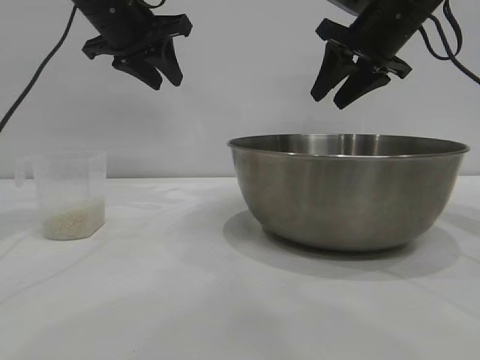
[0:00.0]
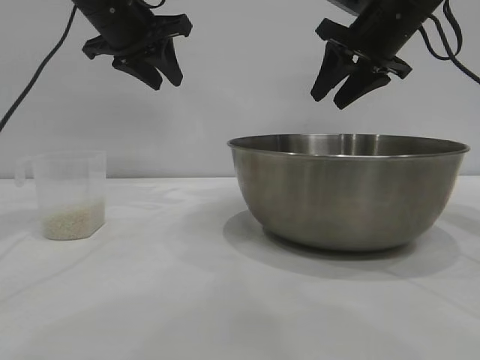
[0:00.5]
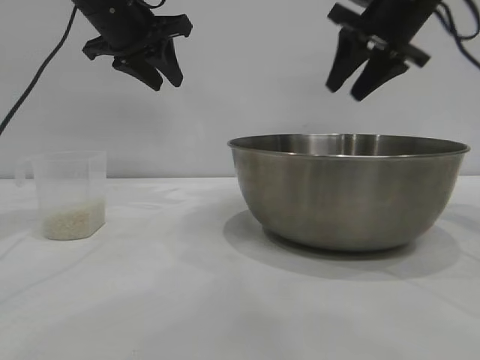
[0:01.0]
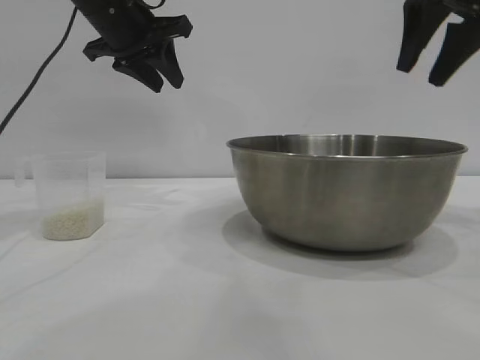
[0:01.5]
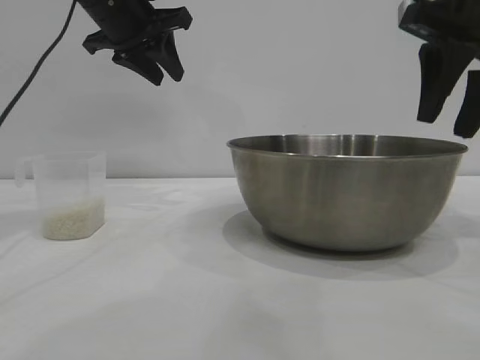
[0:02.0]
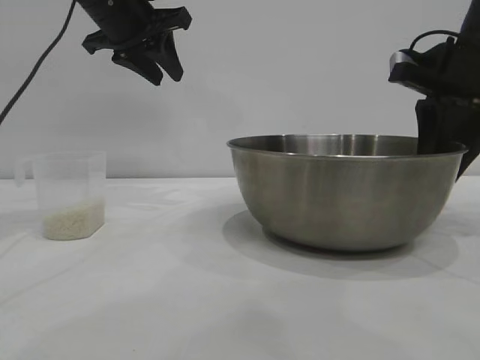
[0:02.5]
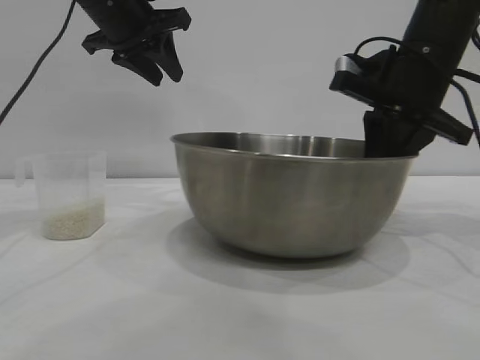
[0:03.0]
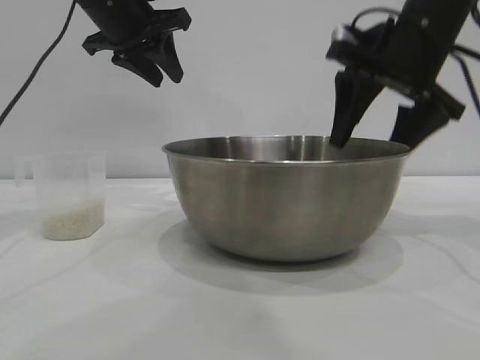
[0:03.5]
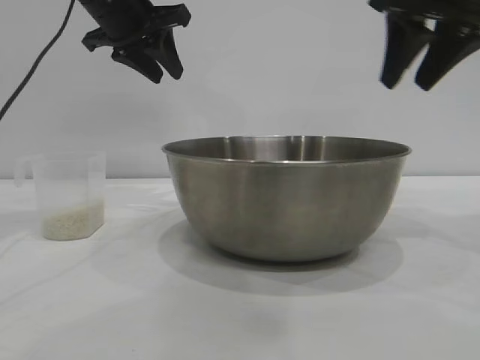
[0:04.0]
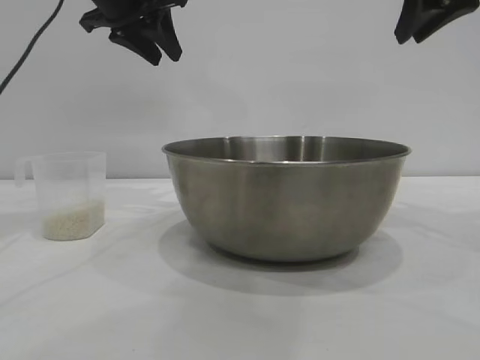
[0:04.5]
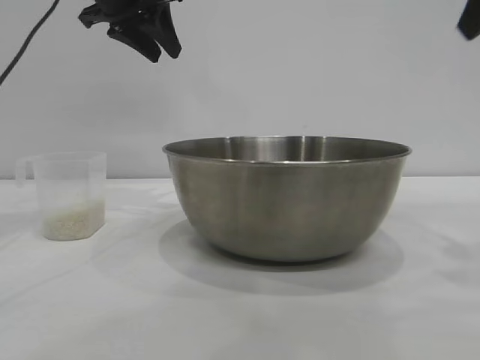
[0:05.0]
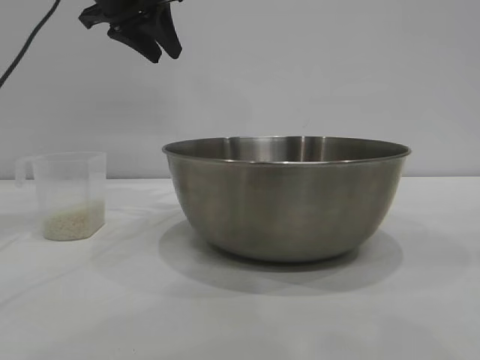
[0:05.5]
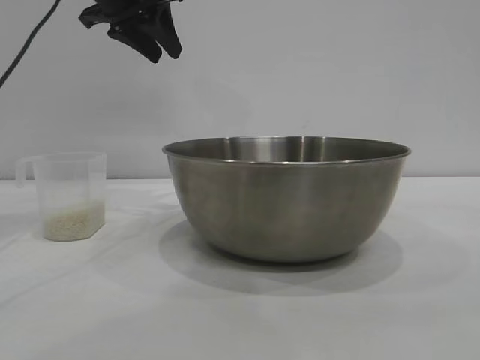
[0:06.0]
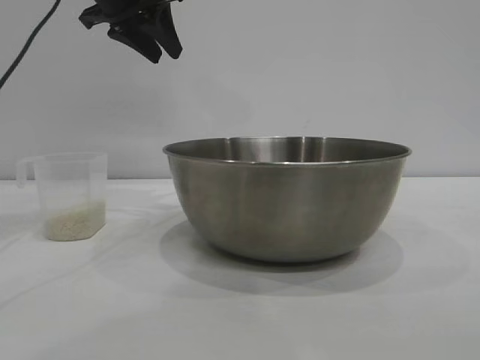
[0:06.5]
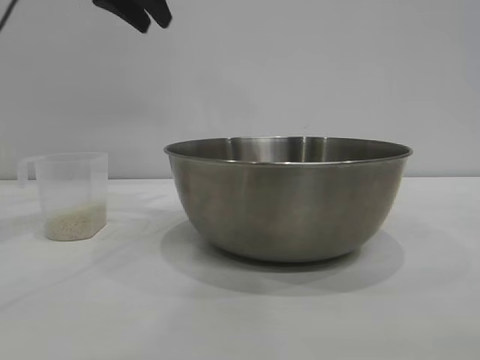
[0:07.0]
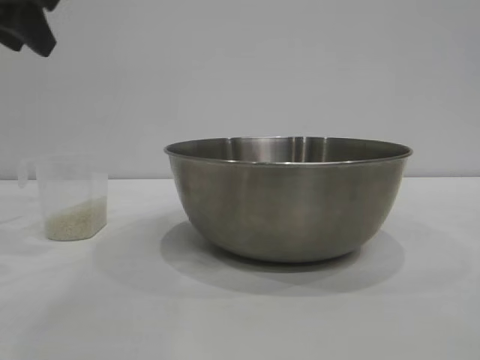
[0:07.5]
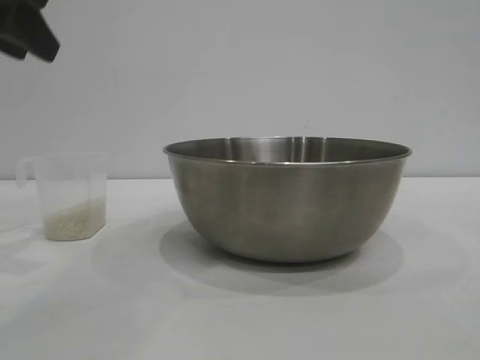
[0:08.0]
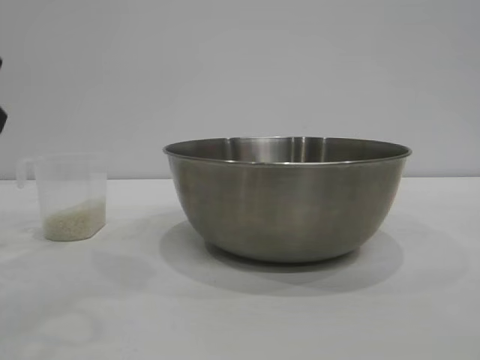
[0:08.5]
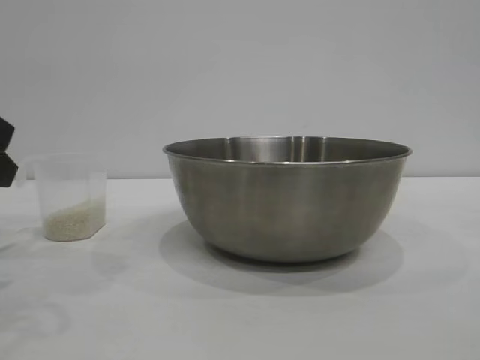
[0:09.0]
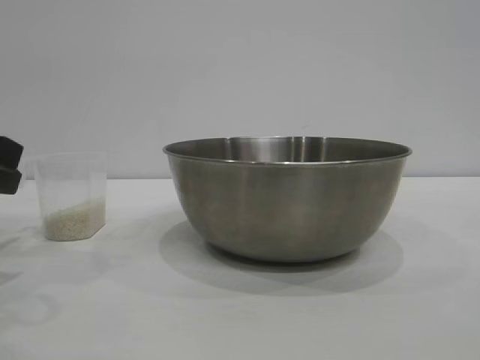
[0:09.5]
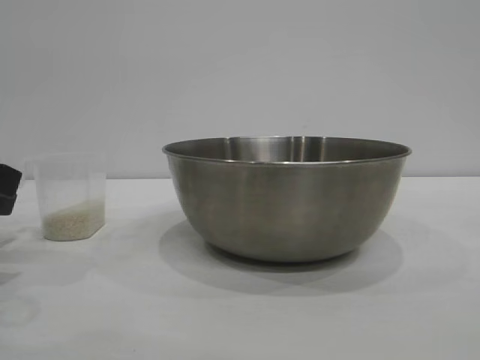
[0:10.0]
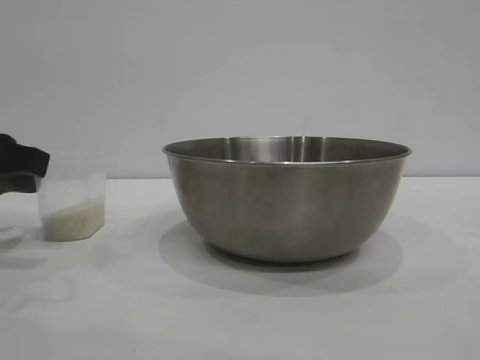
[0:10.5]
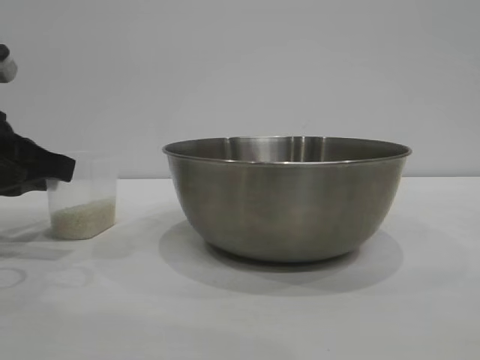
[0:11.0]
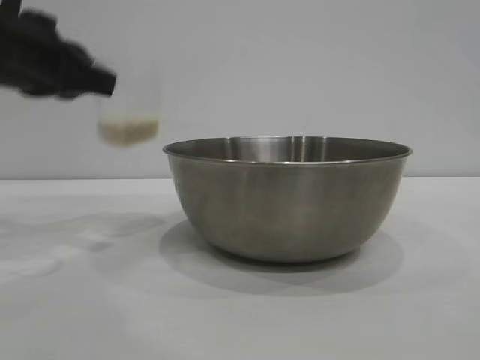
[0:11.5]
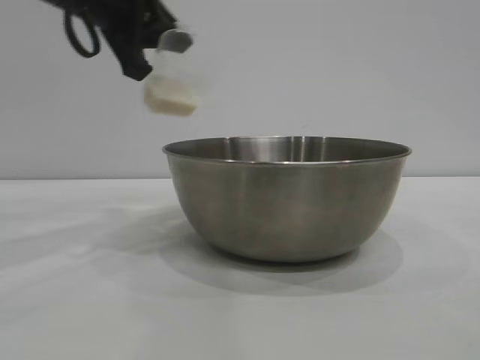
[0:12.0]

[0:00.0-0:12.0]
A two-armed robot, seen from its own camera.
Task of the whole recording: the right gripper grasp the rice container and place it in the center of the table, the left gripper grasp the rice scoop and pour the rice into the rice container.
Step, 0:00.0 to 0:03.5: Move the bowl to the center of view with the right gripper.
Step, 0:04.0 to 0:11.0: Pick up the cup with rice in it with the left gripper.

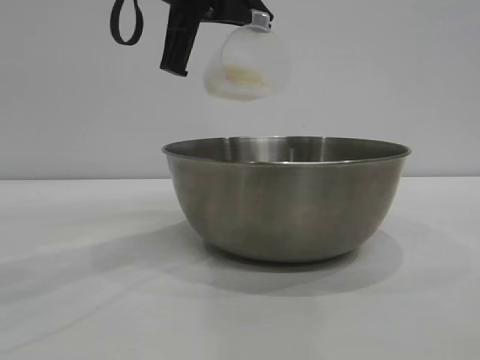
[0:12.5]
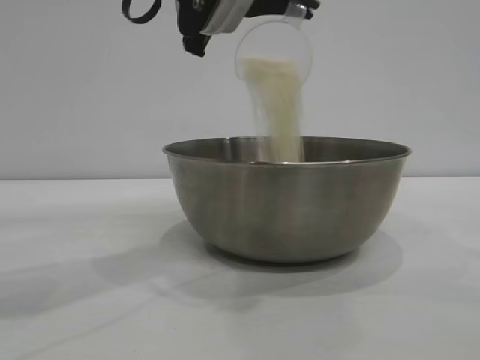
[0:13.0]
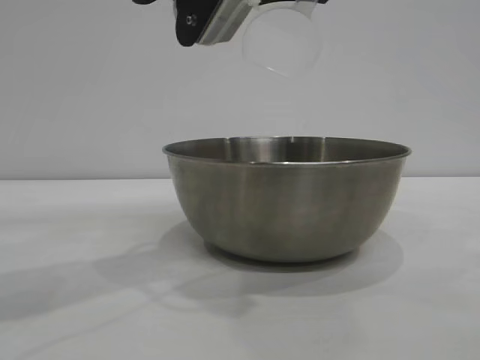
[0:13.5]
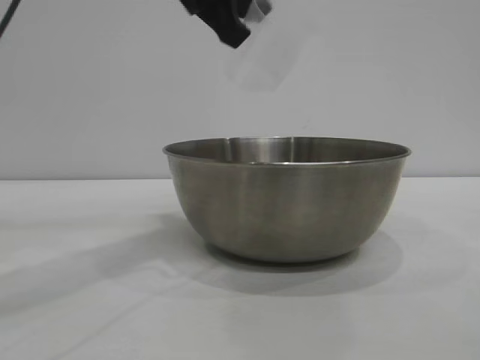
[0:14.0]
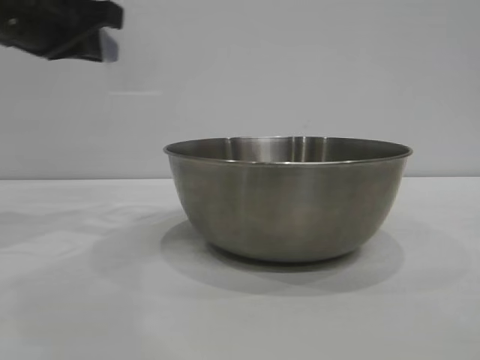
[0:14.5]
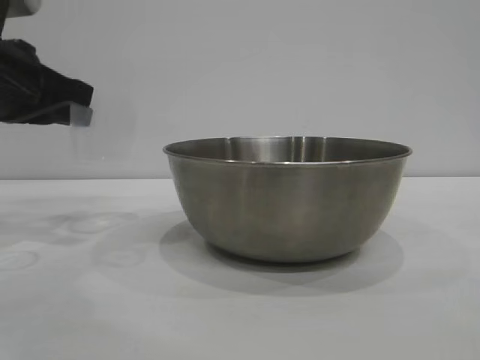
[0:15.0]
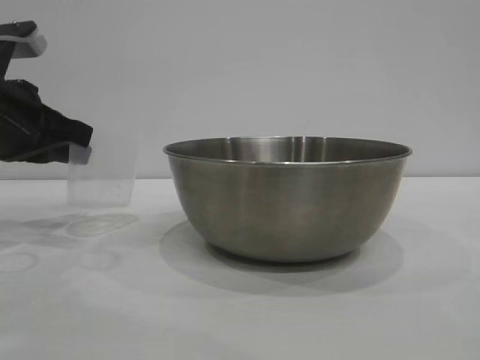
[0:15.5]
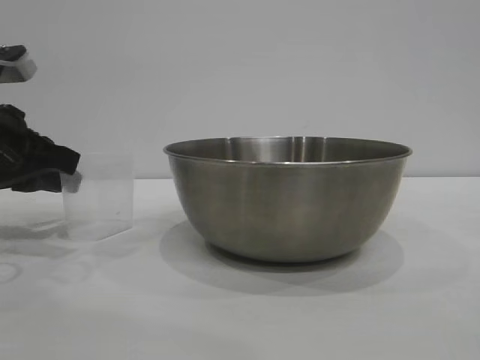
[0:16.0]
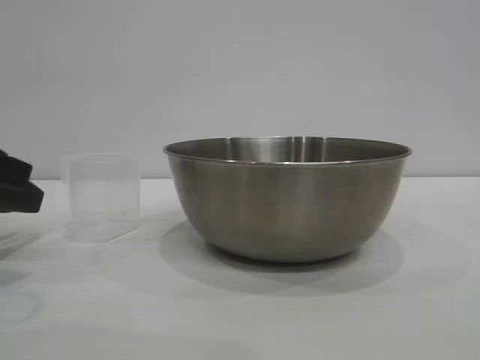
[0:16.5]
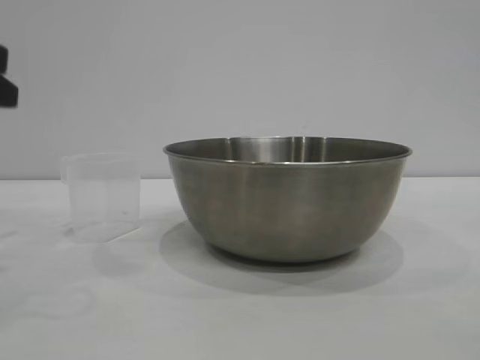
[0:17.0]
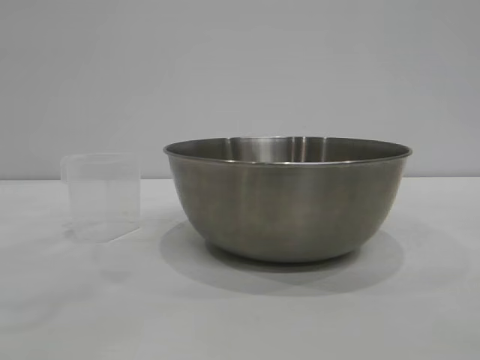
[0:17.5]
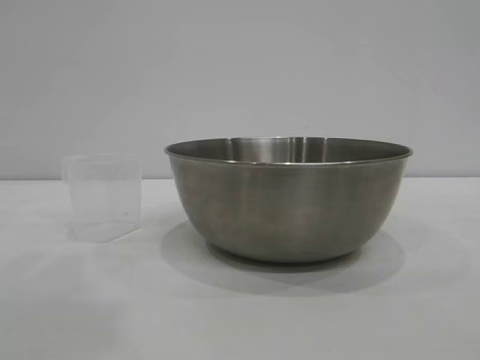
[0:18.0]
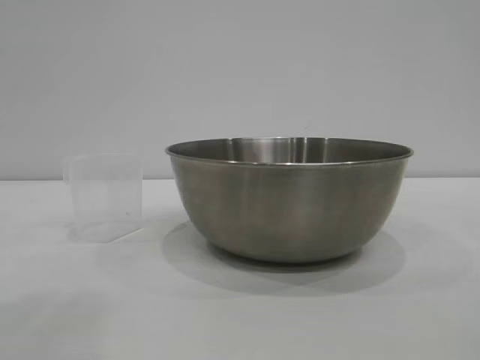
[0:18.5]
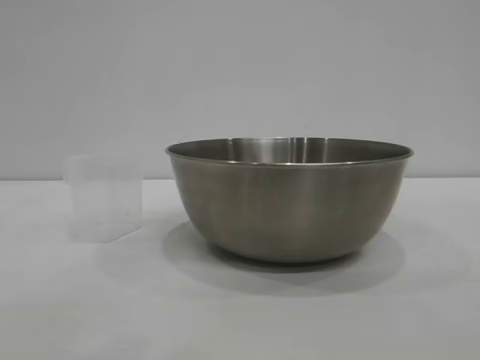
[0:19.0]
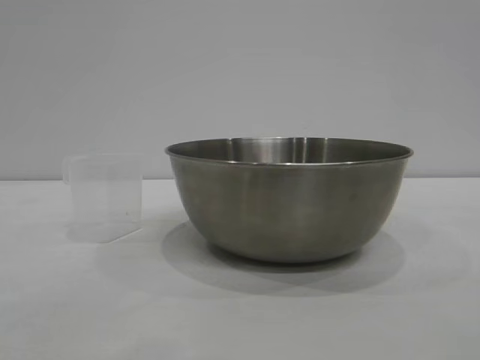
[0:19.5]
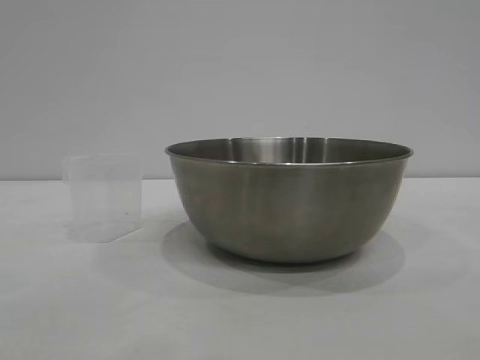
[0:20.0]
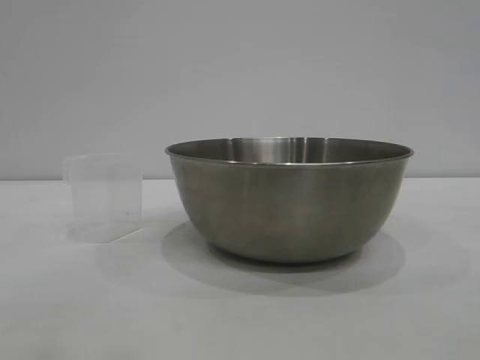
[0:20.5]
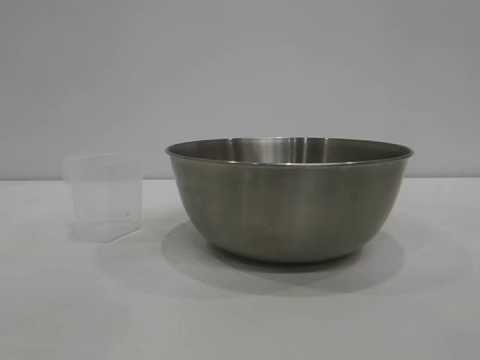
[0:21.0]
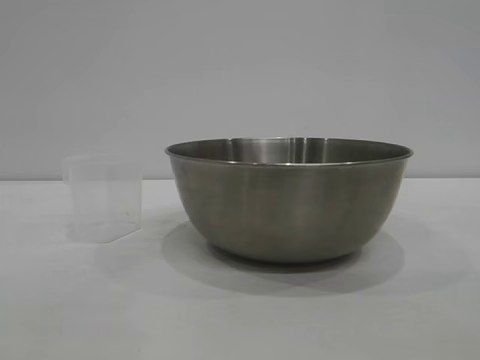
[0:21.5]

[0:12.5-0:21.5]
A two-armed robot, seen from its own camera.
Task of the whole recording: the right gripper grasp the rice container and place it in the center of the table, the left gripper grasp the rice scoop and pour the rice into the rice container.
Step, 0:14.0 to 0:16.0: Place the cup on the table with the left gripper.

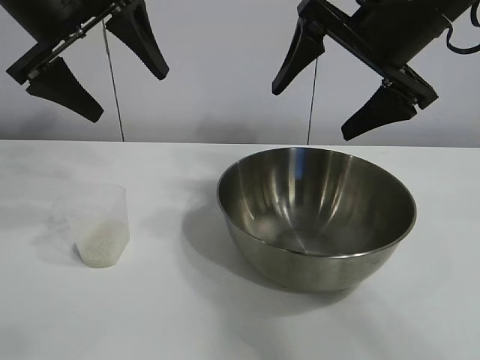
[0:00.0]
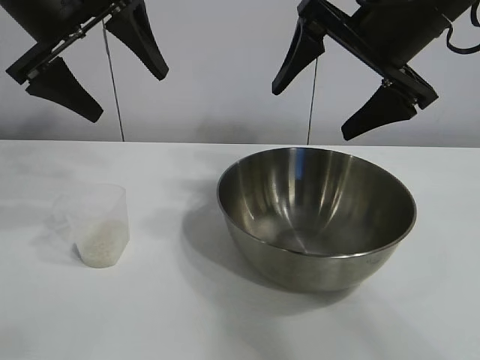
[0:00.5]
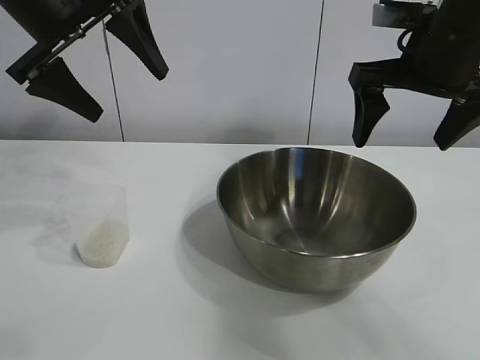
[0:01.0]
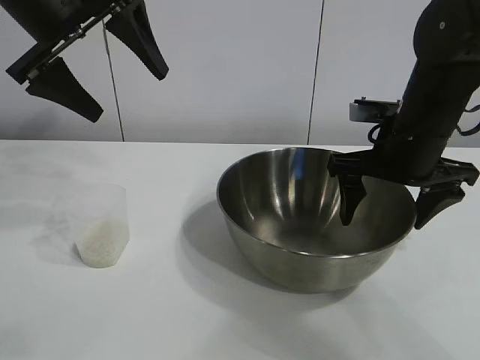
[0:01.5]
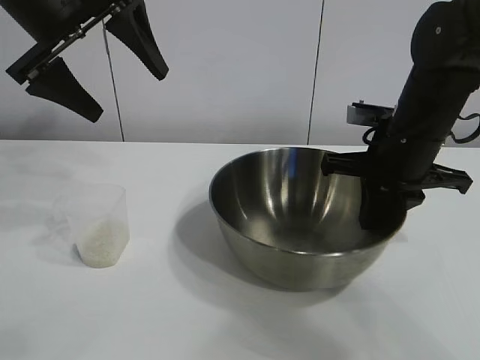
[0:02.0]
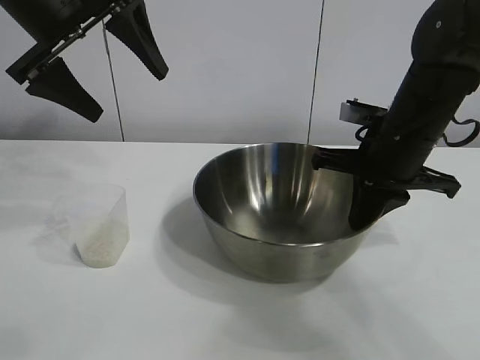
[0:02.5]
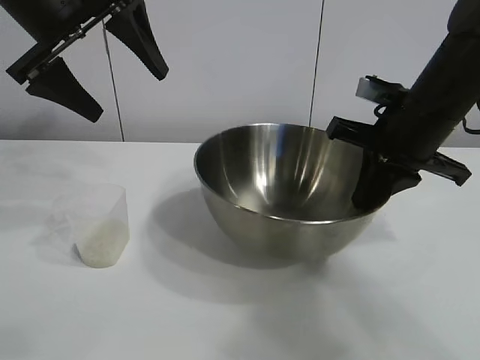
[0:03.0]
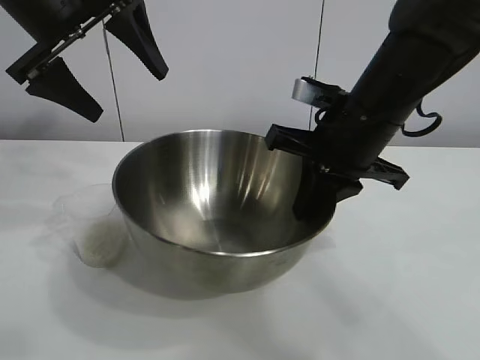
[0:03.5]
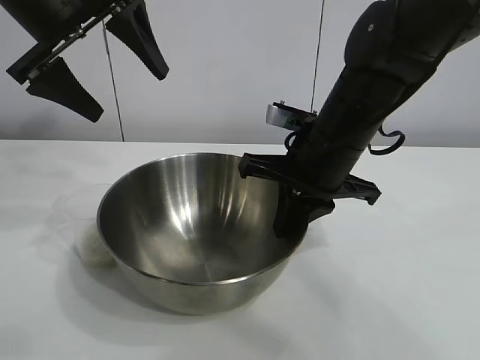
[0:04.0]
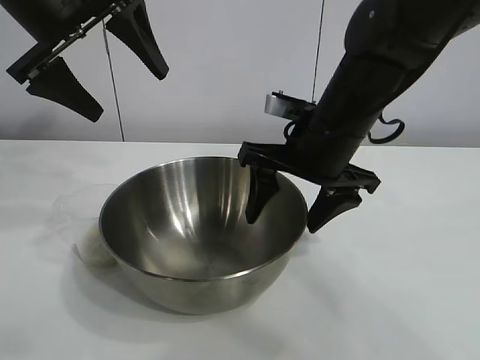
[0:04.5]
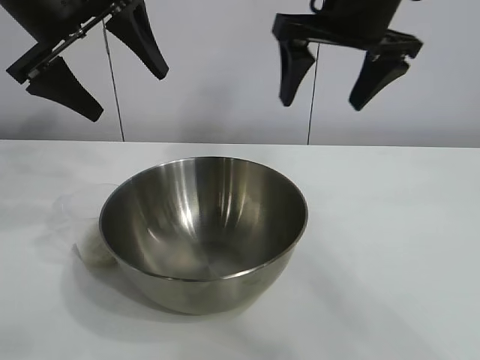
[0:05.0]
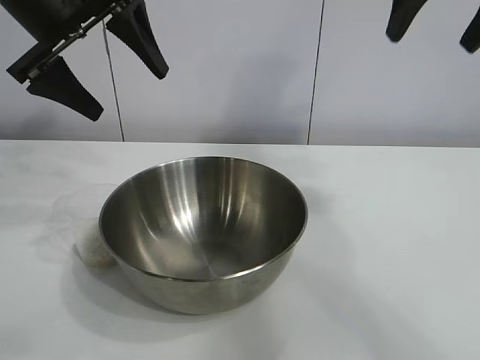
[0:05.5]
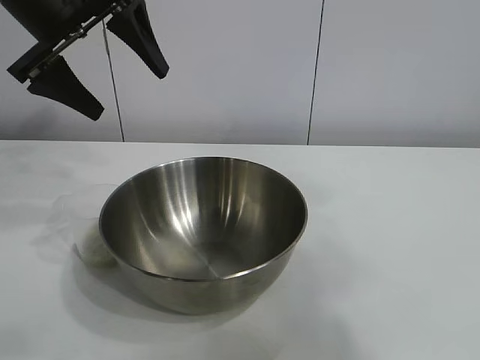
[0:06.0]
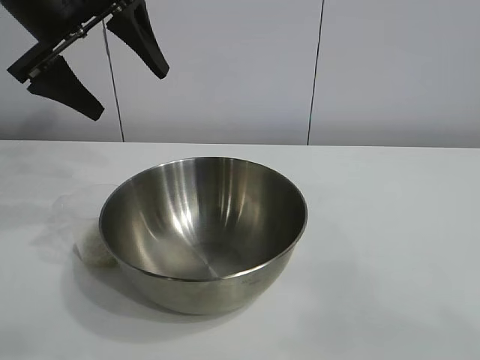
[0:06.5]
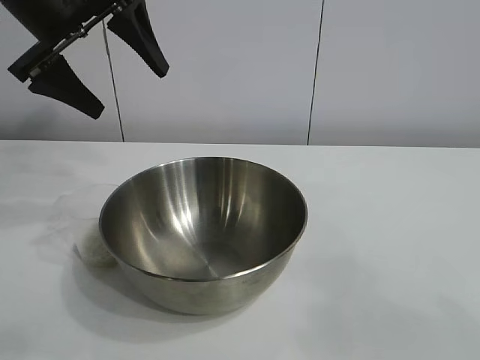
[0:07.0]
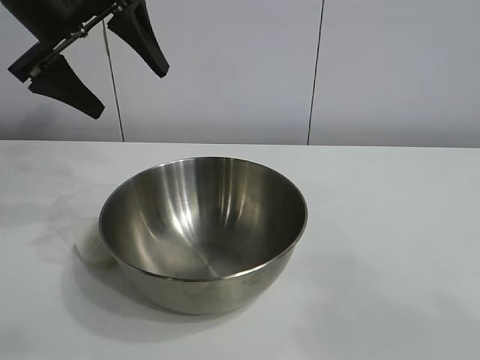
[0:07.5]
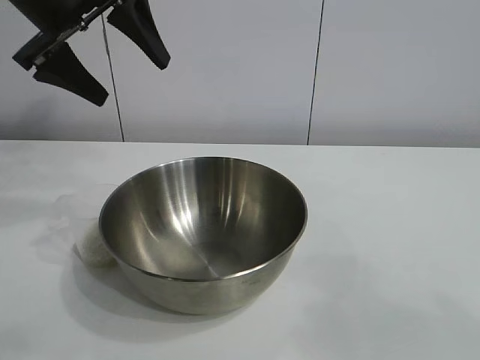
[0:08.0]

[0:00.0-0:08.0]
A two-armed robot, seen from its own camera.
Task of the whole recording: the right gripper grasp the rice container and place it in the center of the table, the left gripper grasp the rice scoop and pour the rice into the rice container.
Step, 0:01.0 to 0:04.0: Move the bowl in the center of view with right gripper.
